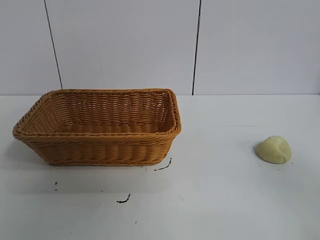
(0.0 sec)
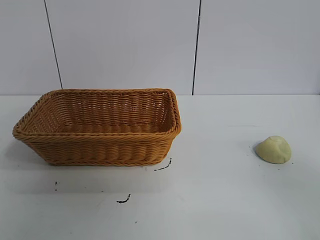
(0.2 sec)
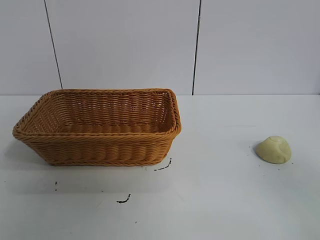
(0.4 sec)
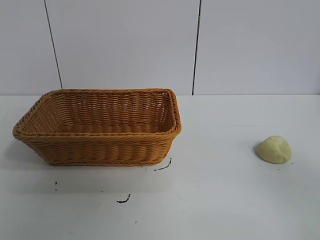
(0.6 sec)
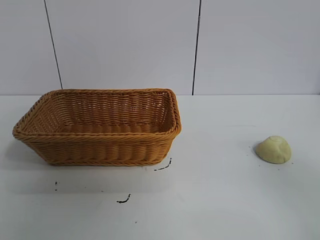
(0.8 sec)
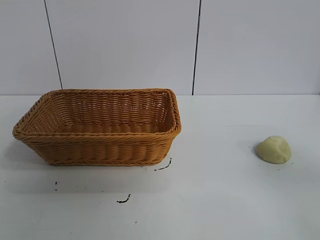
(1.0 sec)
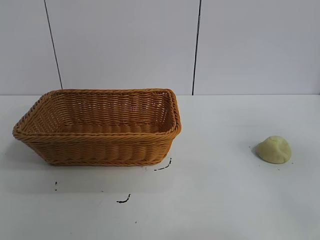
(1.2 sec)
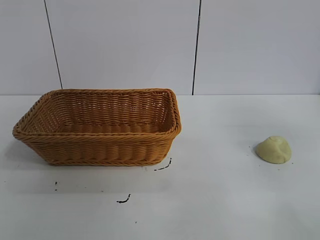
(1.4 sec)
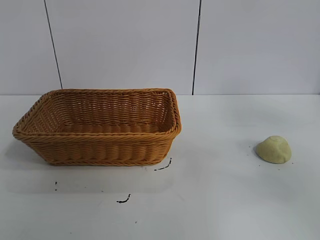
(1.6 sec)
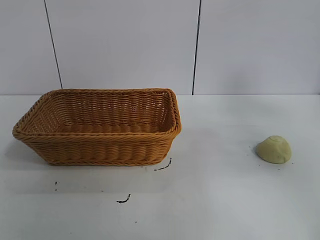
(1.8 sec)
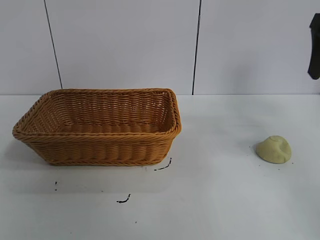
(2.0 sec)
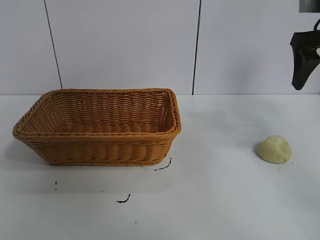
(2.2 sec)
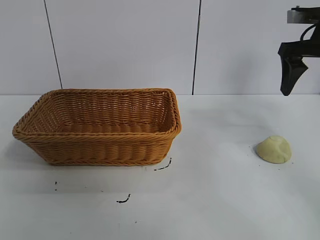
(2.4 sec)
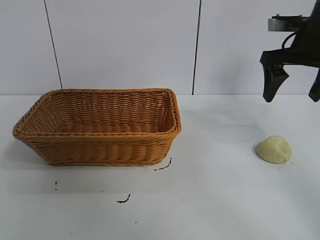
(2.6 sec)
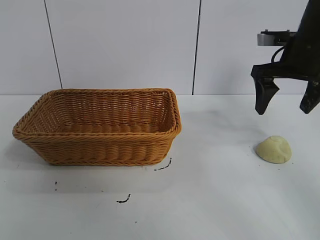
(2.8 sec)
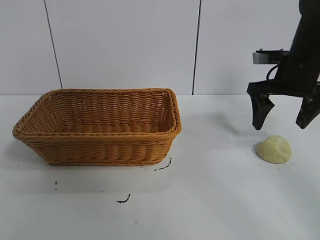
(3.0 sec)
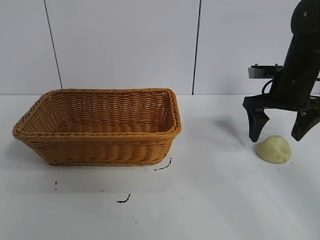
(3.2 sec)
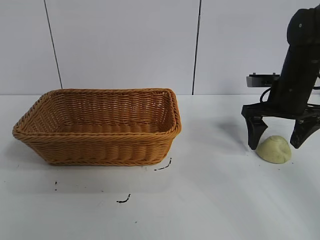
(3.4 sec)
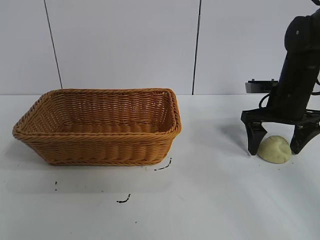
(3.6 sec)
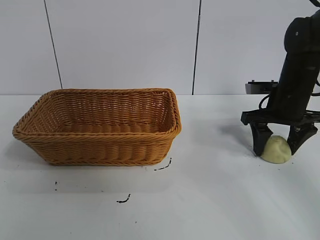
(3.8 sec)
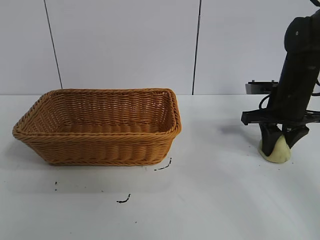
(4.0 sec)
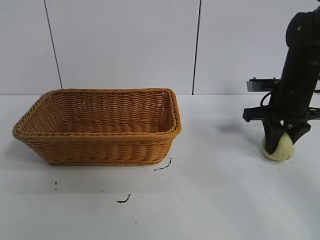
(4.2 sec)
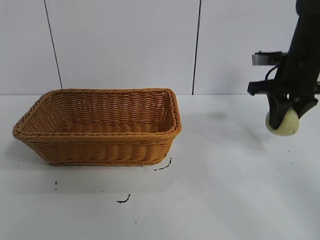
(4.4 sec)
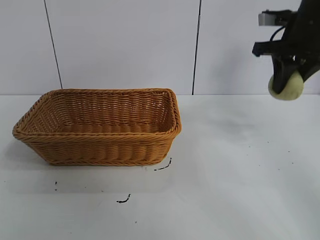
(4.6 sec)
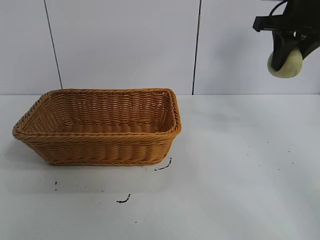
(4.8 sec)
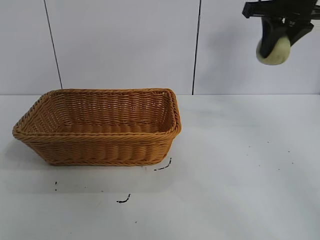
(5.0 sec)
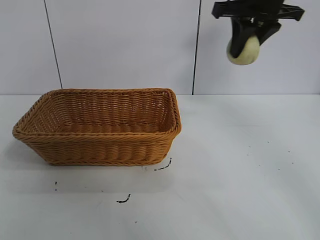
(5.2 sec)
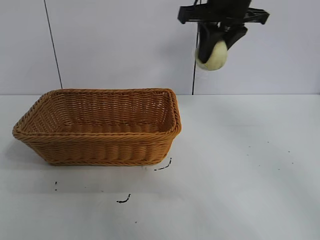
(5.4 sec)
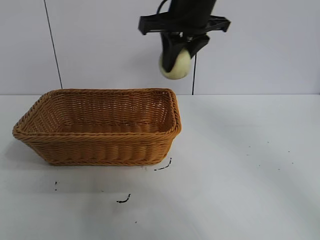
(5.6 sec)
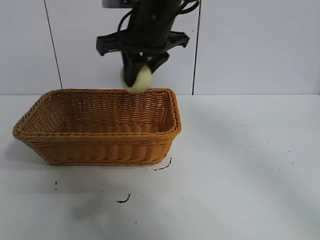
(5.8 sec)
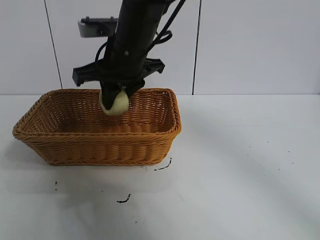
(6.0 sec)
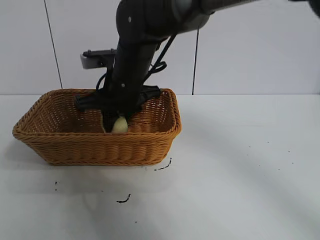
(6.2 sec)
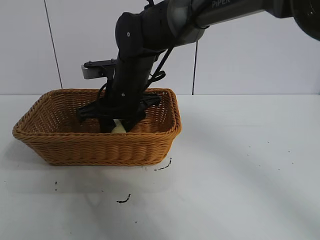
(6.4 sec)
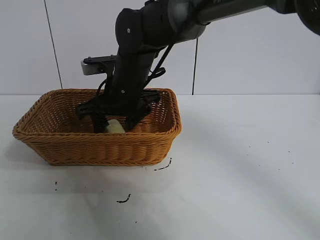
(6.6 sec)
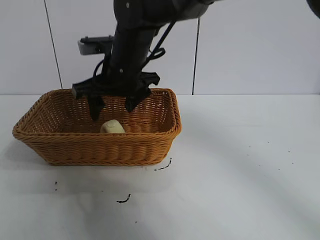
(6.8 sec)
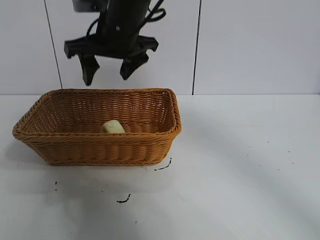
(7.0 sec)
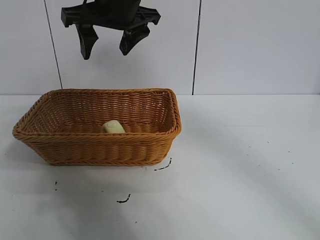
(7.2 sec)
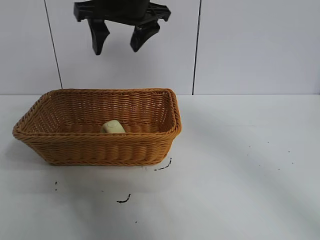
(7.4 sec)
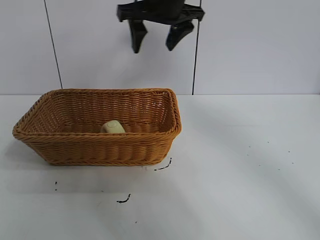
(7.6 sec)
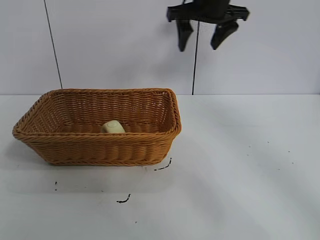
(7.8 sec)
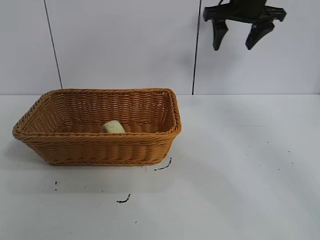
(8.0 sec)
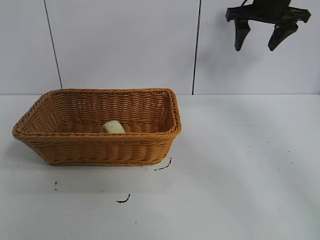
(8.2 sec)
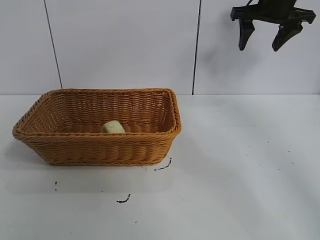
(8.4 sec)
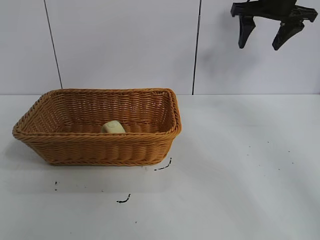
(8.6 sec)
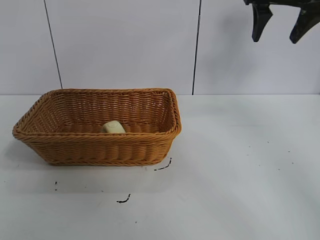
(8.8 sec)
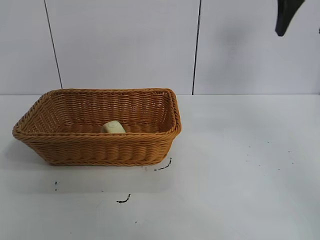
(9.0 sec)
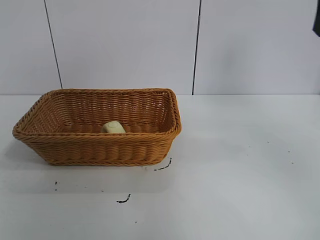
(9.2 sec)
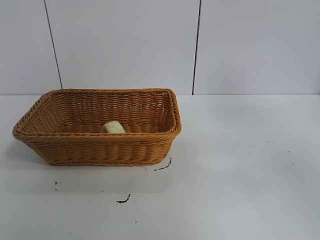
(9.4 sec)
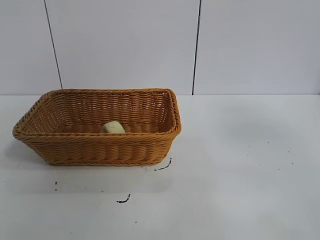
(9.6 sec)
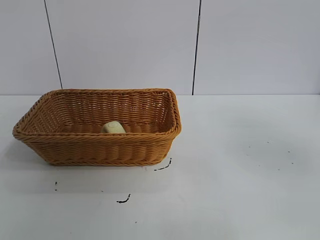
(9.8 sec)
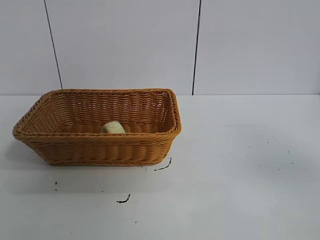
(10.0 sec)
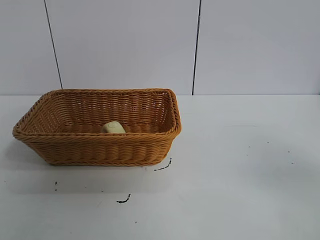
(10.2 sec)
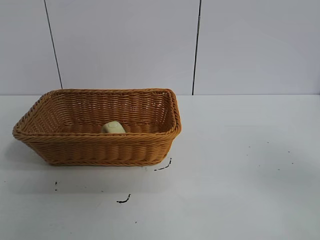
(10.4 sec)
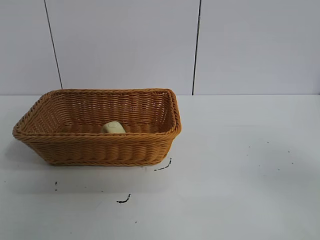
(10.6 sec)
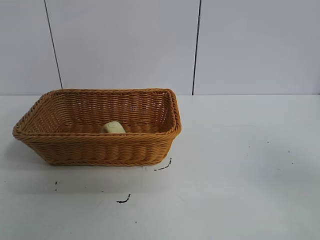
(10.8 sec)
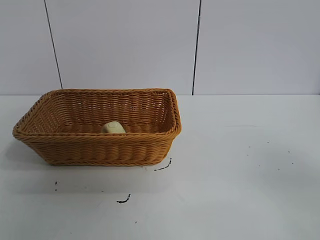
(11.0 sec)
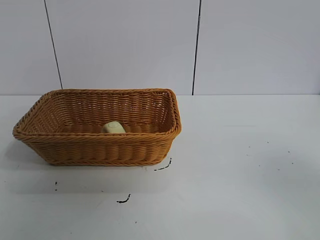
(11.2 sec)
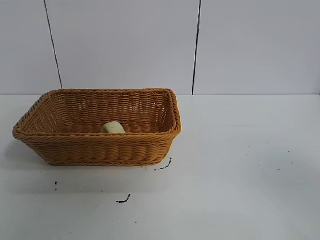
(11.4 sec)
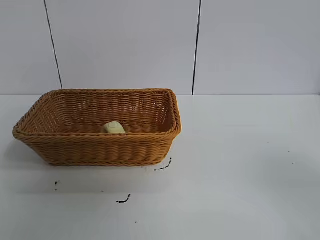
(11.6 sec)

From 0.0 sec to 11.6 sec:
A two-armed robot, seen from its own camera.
Task of the whole recording: pick up the egg yolk pastry and put it into the basket.
Step, from 0.8 sec to 4.0 sec: Grasp egg yolk pastry with right gripper.
Step, from 4.2 sec to 6.6 sec: Place the egg yolk pastry in the basket with right gripper.

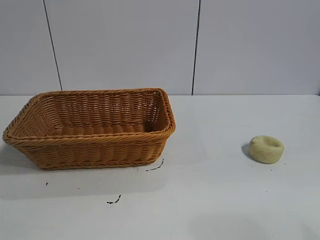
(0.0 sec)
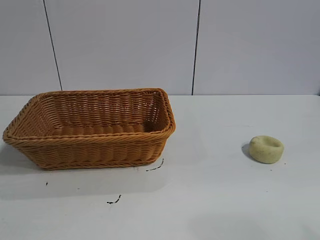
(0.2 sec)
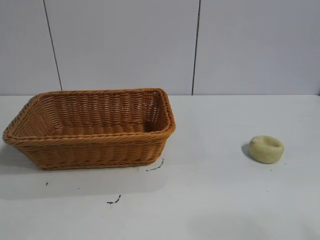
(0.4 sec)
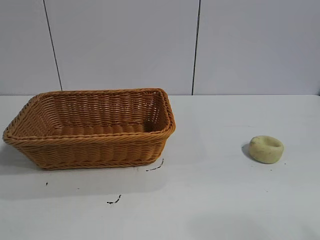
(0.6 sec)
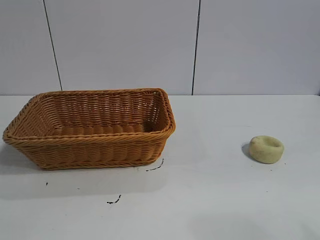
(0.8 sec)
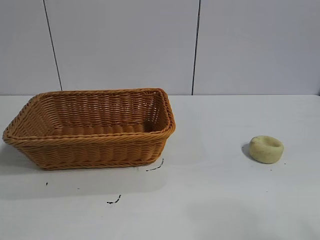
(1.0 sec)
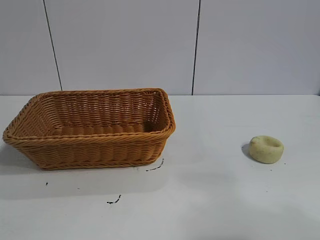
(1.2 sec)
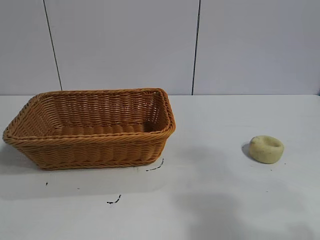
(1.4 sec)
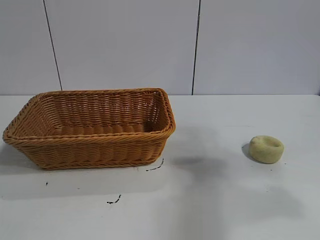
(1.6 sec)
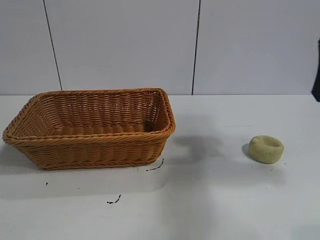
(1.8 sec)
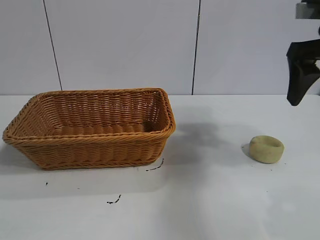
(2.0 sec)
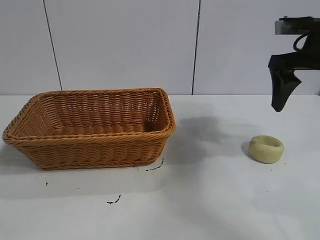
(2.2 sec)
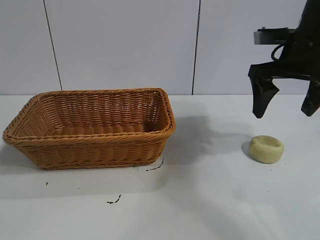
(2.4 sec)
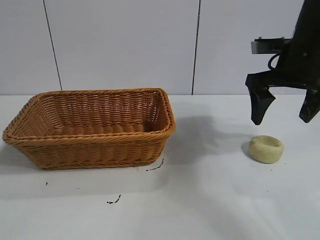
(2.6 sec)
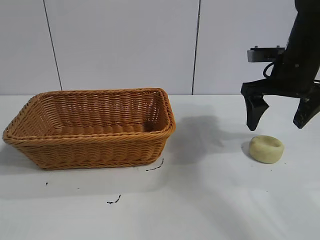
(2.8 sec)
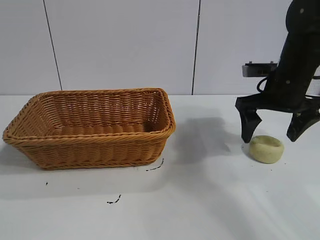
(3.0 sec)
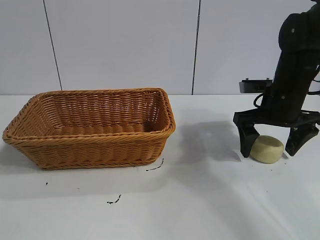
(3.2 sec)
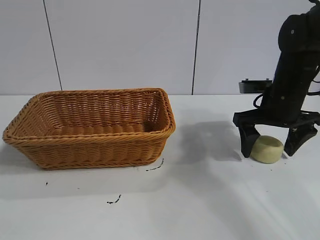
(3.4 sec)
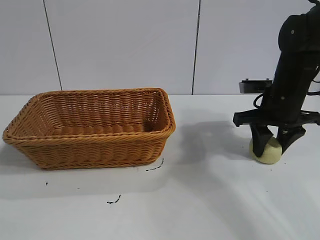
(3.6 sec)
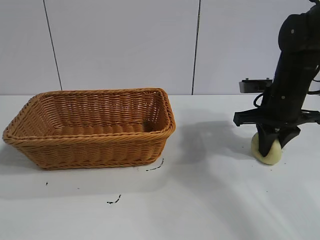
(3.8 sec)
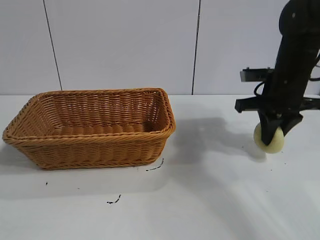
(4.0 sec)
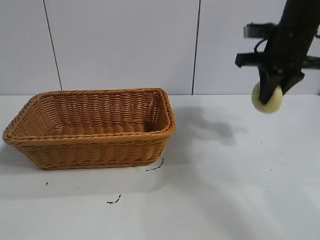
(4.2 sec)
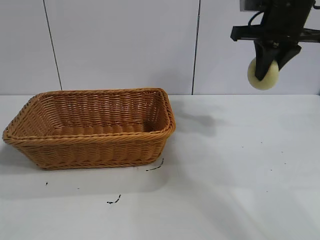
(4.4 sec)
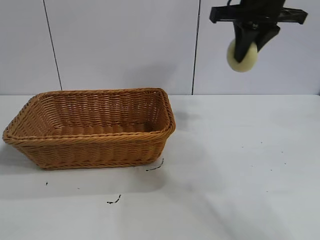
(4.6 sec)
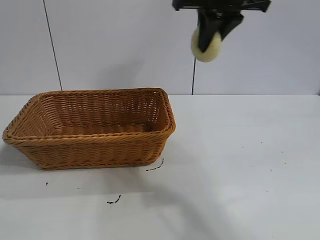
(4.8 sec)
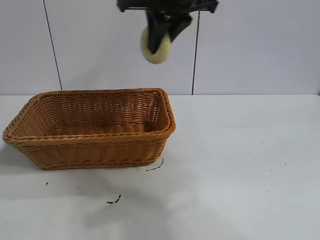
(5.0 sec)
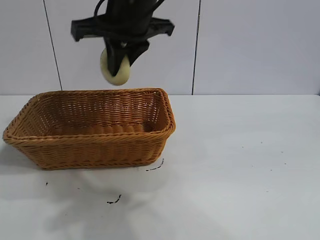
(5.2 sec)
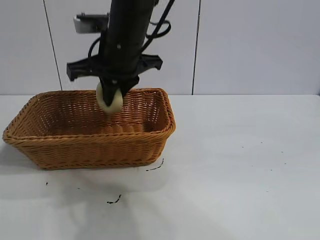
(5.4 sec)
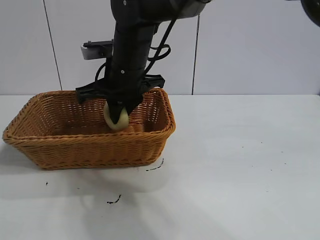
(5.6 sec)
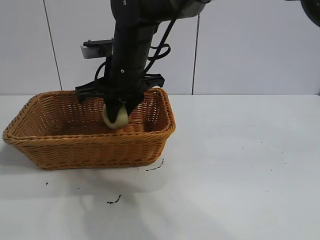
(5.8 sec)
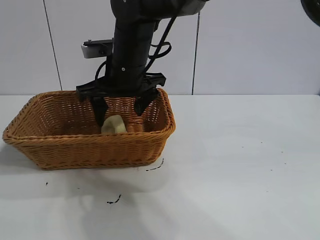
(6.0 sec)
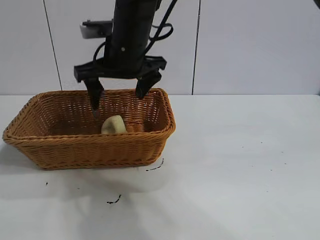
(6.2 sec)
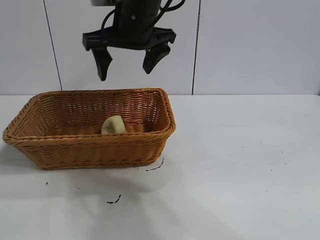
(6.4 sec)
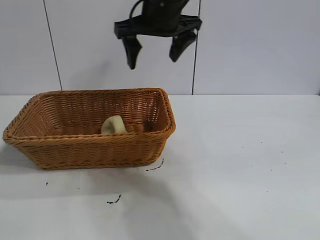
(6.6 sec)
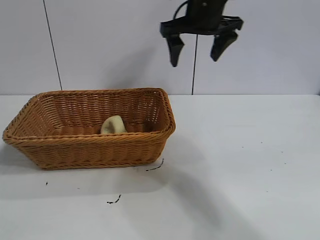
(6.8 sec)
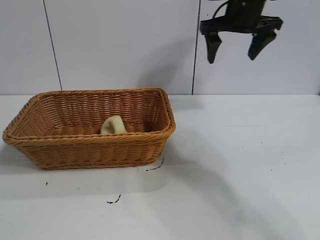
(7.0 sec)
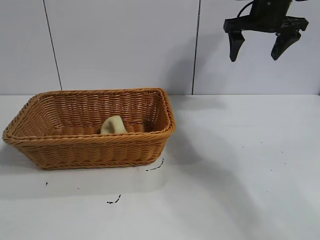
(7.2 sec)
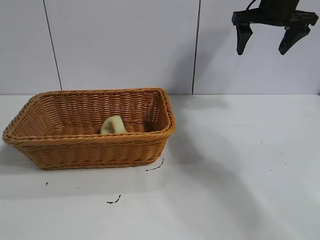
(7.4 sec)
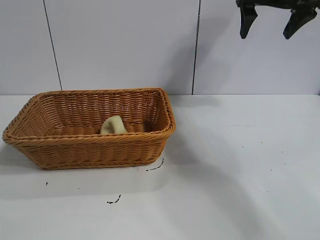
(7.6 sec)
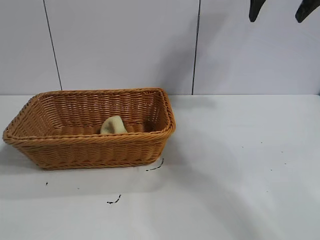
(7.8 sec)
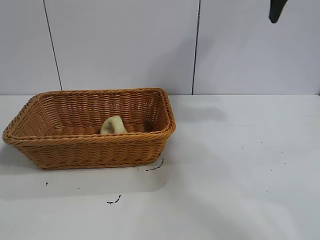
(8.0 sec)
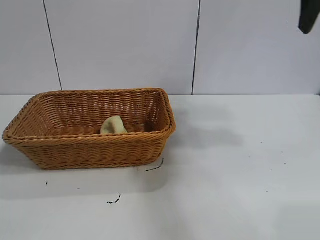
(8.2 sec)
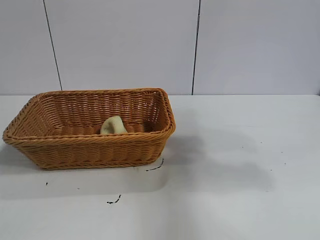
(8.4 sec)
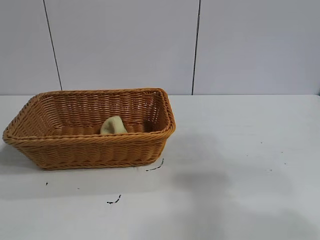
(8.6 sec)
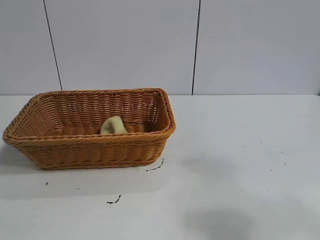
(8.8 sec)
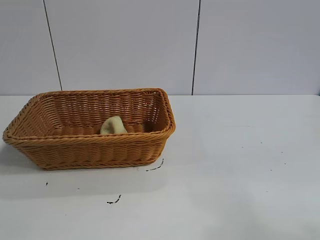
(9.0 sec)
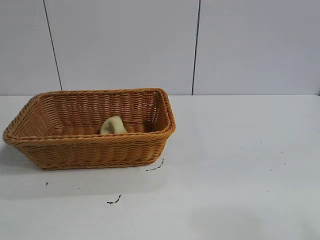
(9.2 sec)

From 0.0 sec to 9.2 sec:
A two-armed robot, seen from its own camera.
Task of the whole recording: pick up the egg yolk pastry and put it into the basket.
Step, from 1.0 sec to 3.8 sec: Grasp egg yolk pastry with right gripper.
Step, from 4.0 sec to 6.0 sec: Place the egg yolk pastry in the basket with right gripper.
